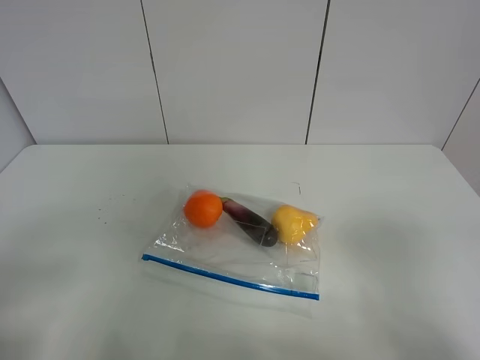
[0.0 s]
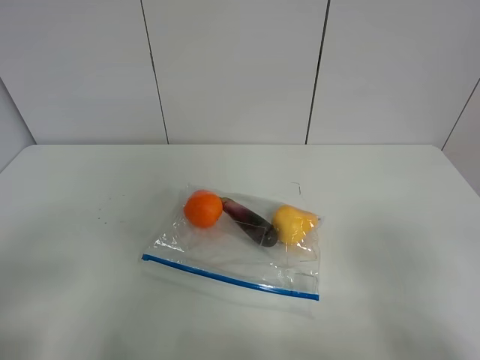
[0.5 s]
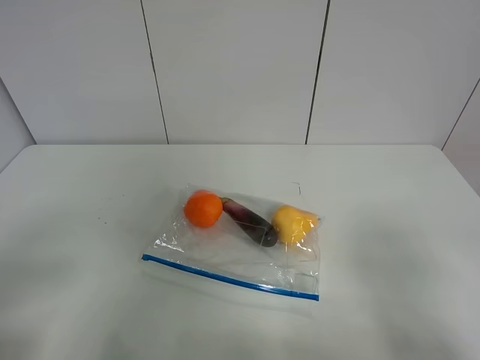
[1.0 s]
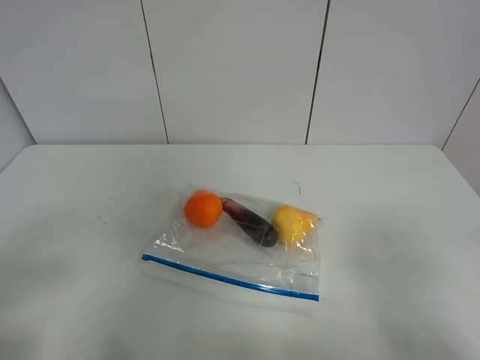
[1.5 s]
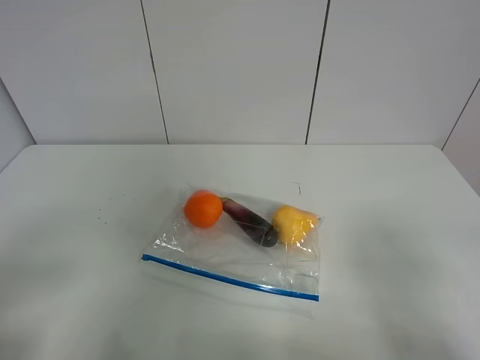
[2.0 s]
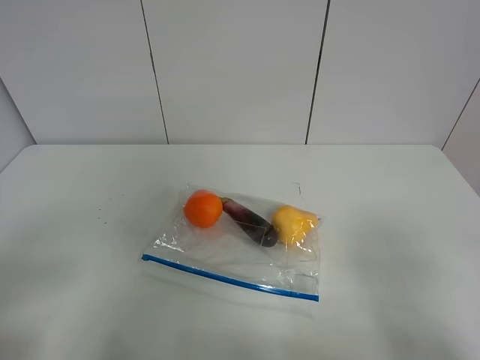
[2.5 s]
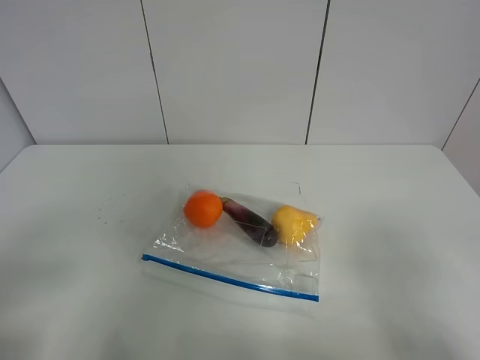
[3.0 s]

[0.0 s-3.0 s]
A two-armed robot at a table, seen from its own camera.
1.5 to 3.0 s: The two grippers keep their place.

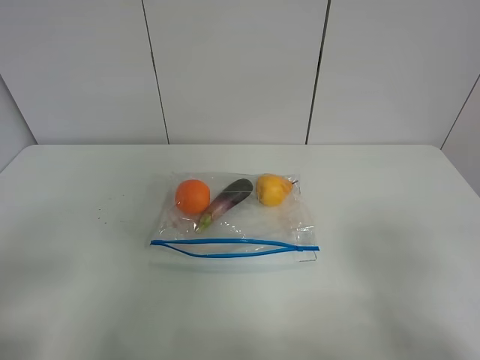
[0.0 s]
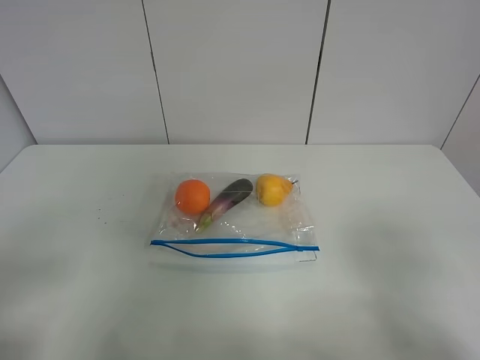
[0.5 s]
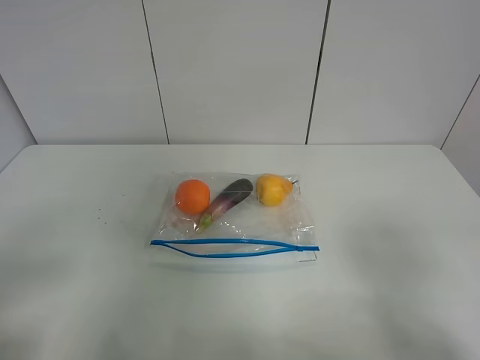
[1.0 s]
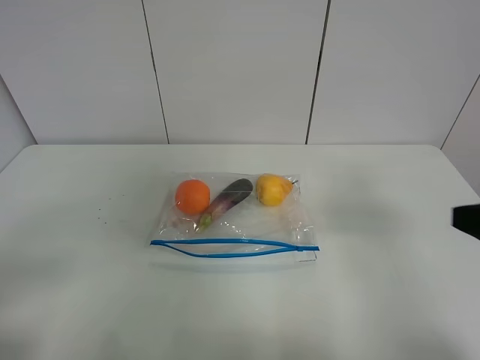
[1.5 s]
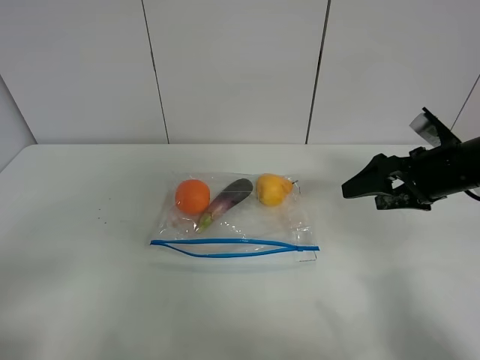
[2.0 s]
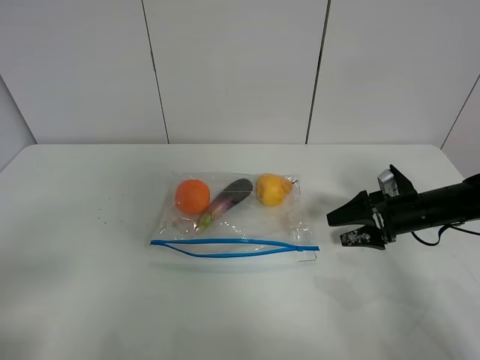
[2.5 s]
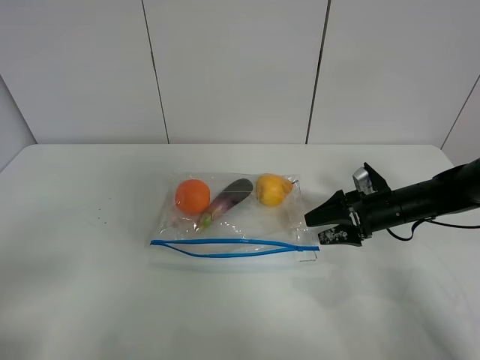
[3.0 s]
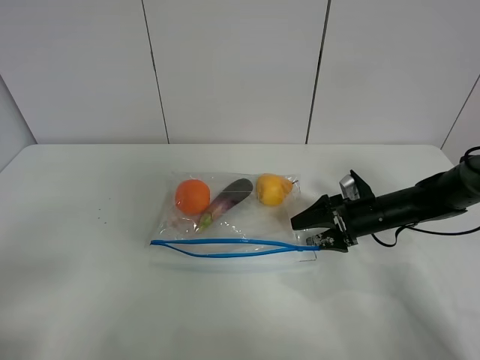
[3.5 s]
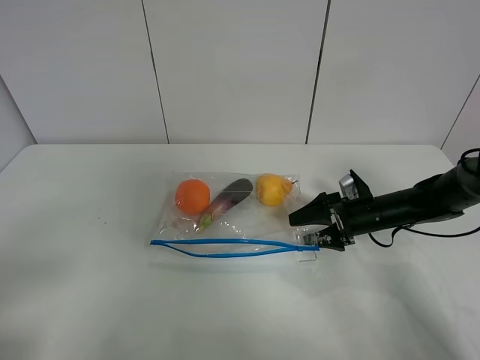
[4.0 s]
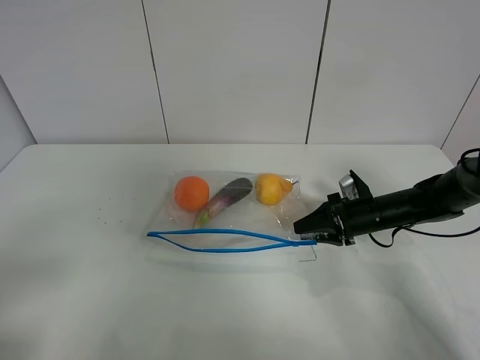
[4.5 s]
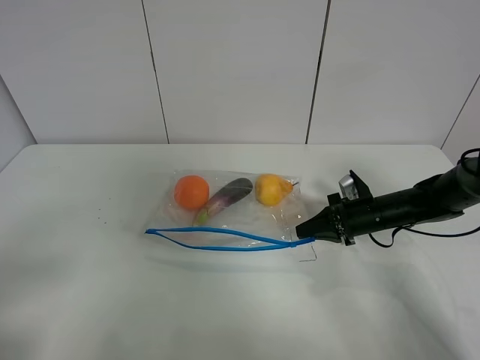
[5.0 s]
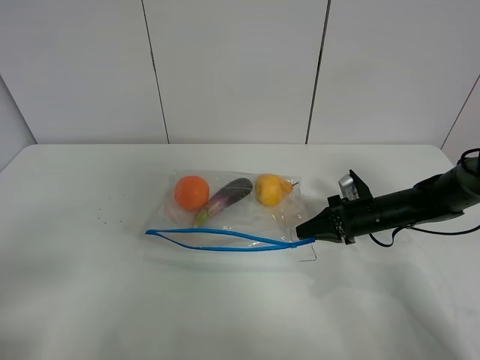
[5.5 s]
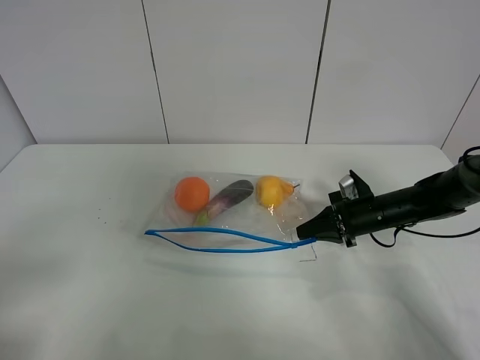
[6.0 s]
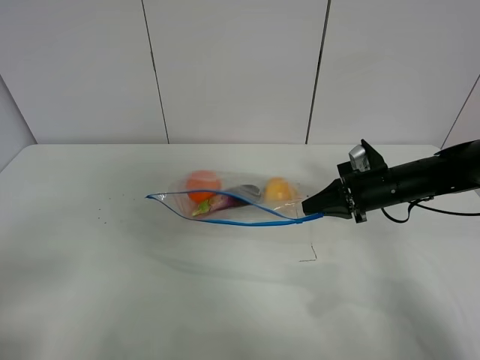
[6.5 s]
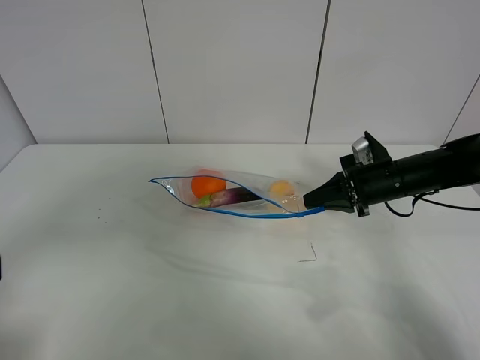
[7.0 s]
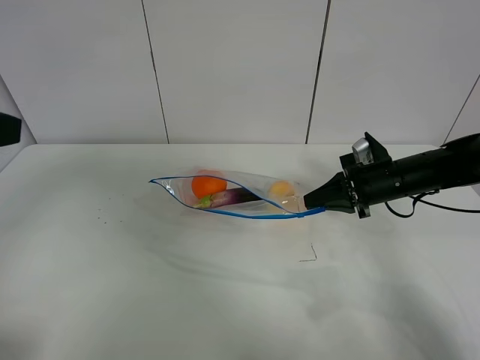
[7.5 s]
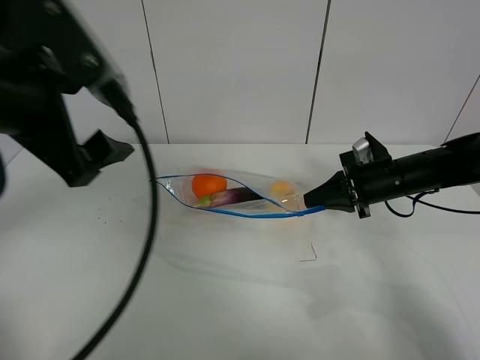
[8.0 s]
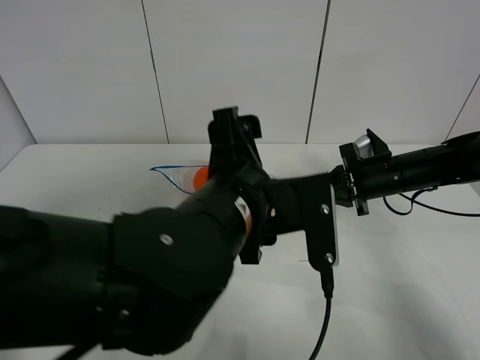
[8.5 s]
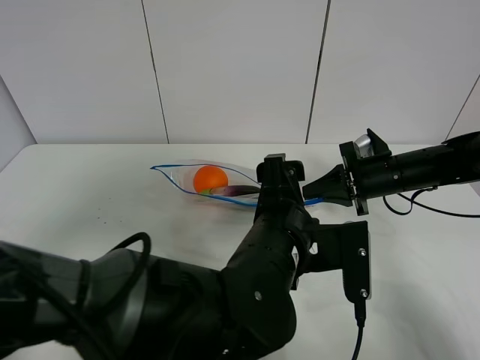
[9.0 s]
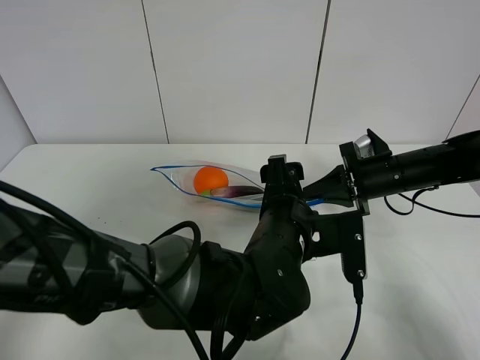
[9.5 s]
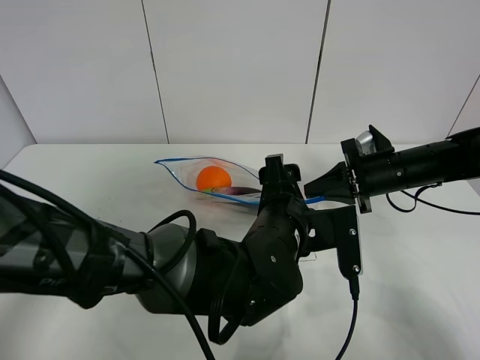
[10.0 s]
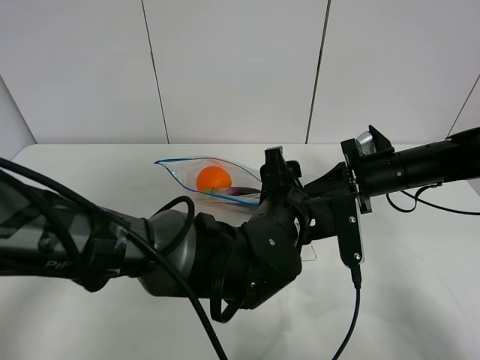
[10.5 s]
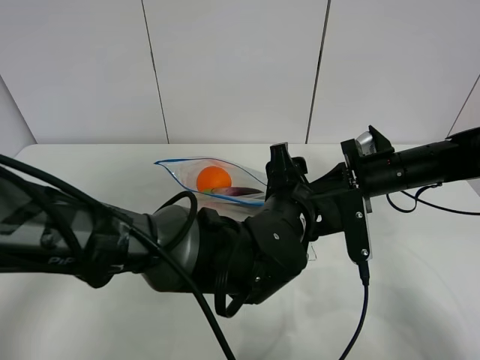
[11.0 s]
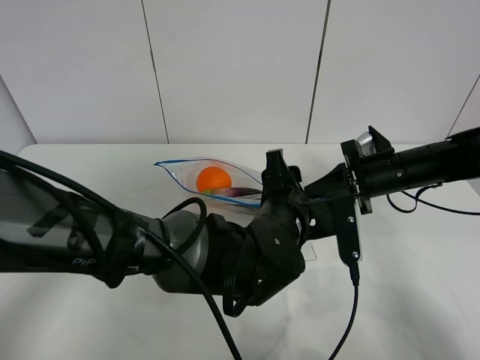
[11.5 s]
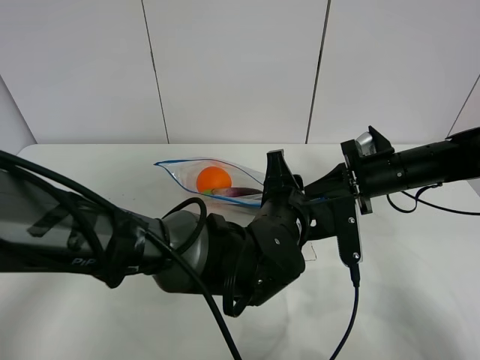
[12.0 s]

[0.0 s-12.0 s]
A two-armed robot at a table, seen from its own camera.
Step, 0.0 to 4.5 s: Grasp the fruit bag with right gripper.
Step, 5.0 to 7.0 s: Lift the fruit bag with your right gripper.
0.0 to 2.0 s: The right gripper goes approximately 30 cm forward.
2.0 to 4.0 s: The right gripper is displaced downward by roughly 15 cm.
4.0 to 6.0 s: The right gripper closes its fingers.
6.0 to 8.0 s: The right gripper shifts approximately 10 cm upward. The left gripper is displaced forward, to the right and upward by about 25 cm.
8.0 to 10.0 s: The left gripper moves to the right and downward, some 30 cm.
10.0 to 12.0 s: The left gripper closes.

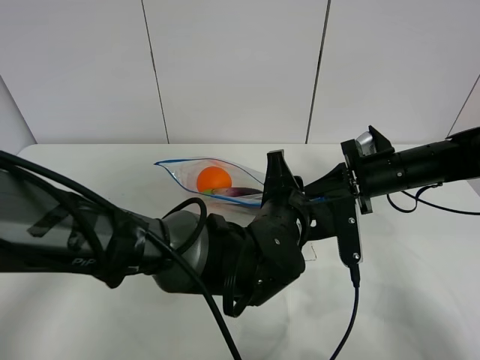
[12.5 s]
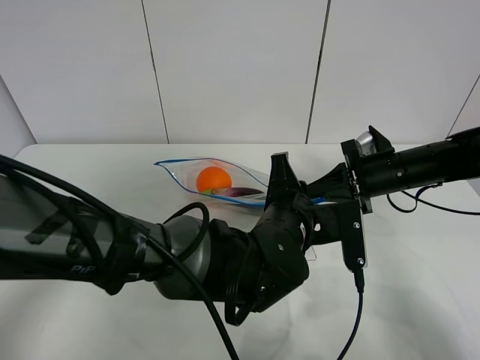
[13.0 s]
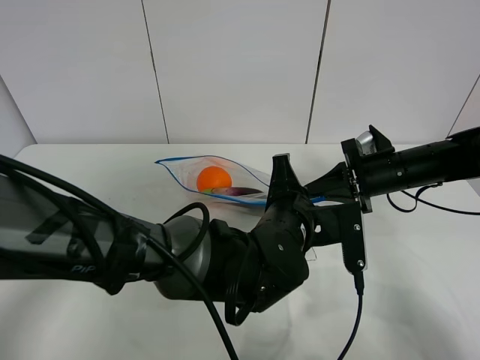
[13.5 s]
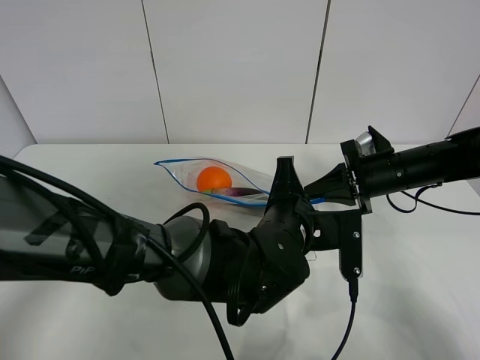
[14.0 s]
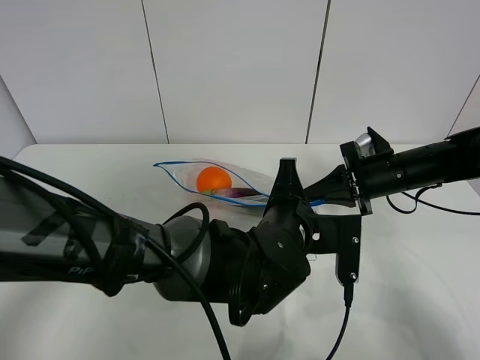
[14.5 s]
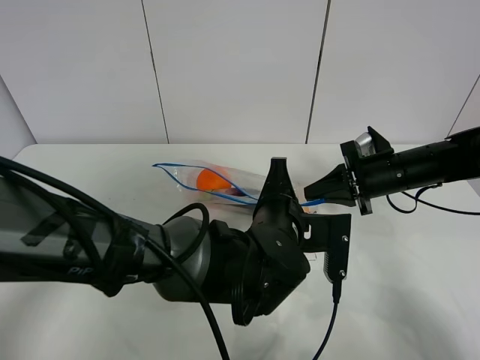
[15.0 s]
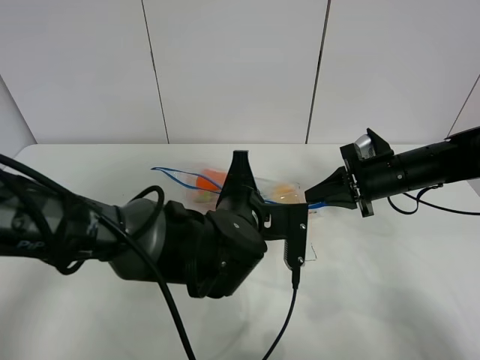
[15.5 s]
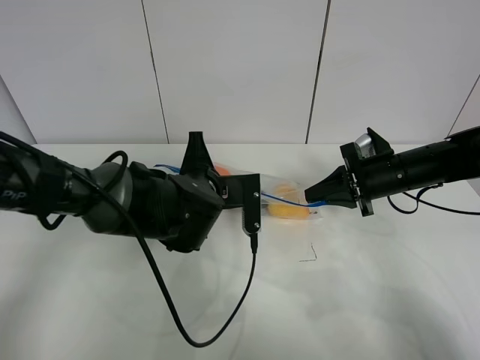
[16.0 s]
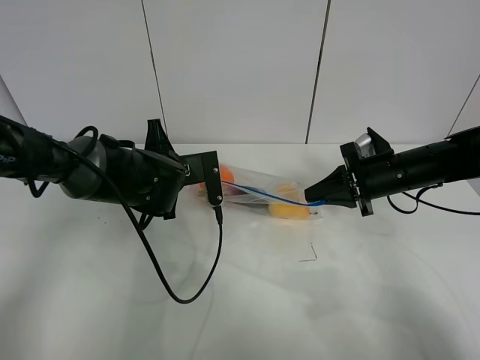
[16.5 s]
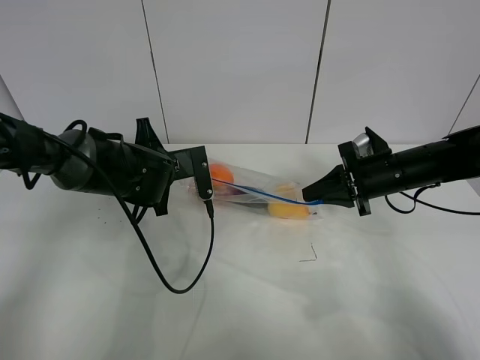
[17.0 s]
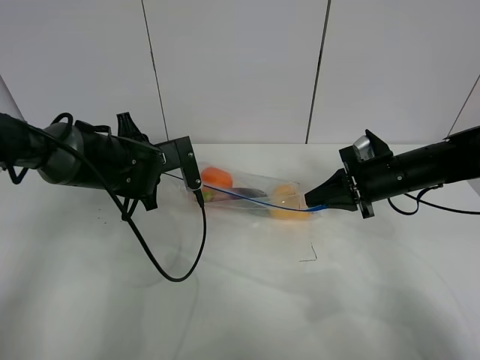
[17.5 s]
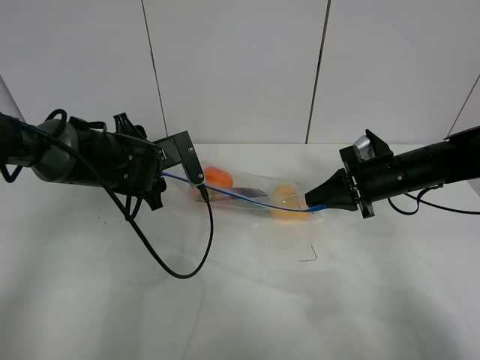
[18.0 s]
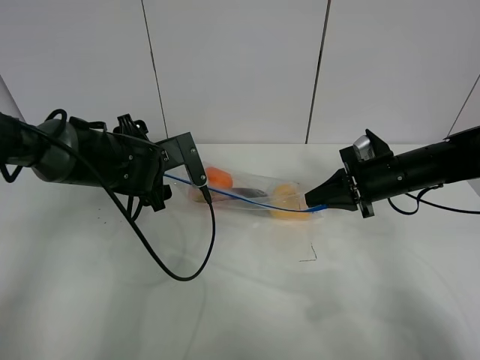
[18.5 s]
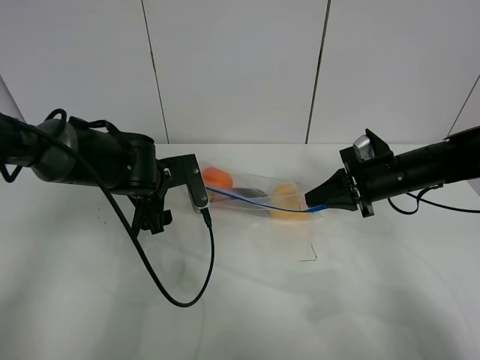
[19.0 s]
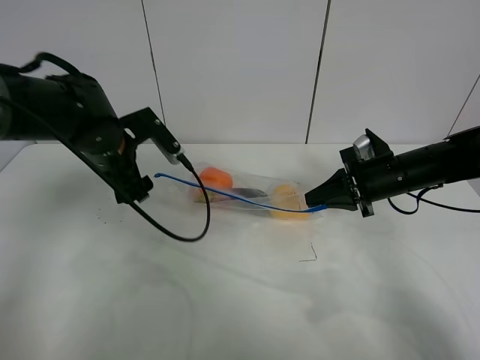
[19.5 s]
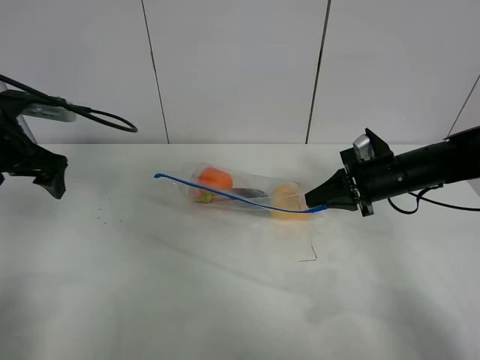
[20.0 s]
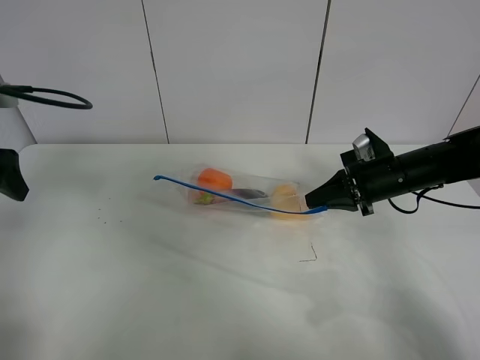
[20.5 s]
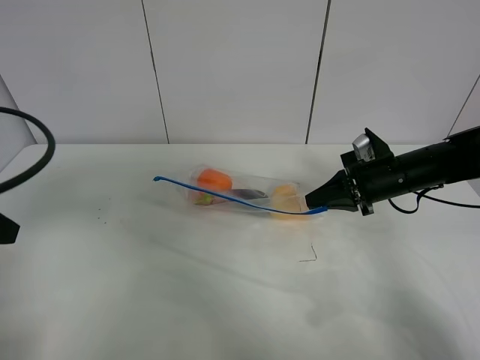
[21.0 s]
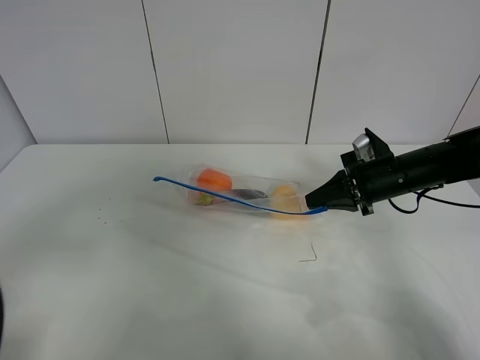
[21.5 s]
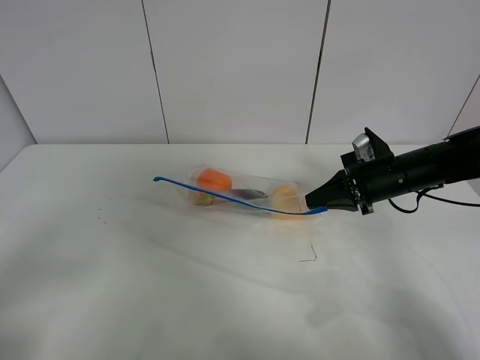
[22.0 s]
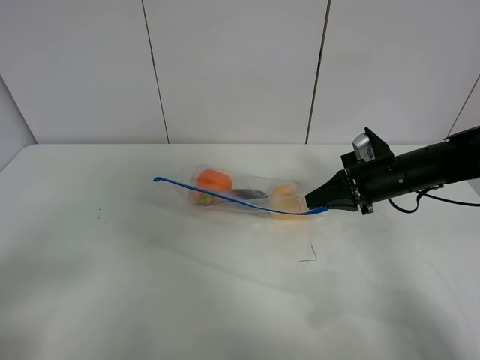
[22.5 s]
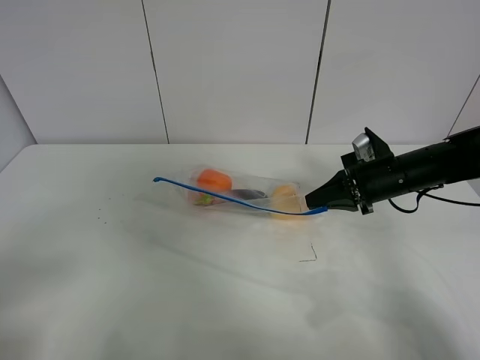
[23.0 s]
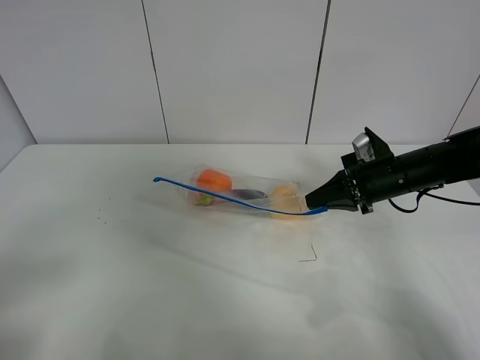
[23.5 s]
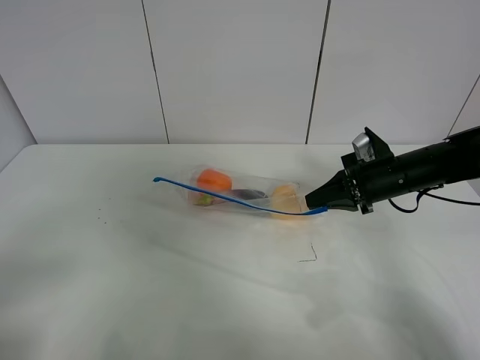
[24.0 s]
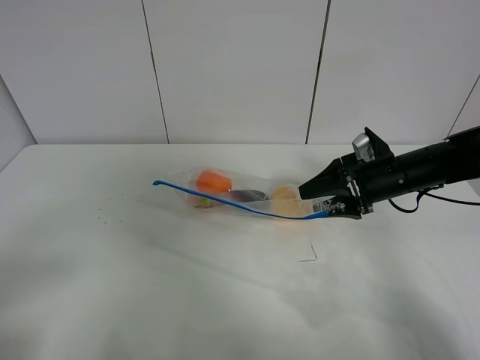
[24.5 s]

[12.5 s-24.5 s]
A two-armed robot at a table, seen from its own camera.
Step, 12.5 to 17.5 s: Pull the fruit bag with left gripper.
12.5 to 14.5 s: The left gripper closes its fingers.
14.5 to 16.5 s: The left gripper is displaced to the left and forward by approximately 20 cm.
16.5 to 18.5 s: The left gripper opens its fingers.
18.5 to 20.5 s: The left gripper is displaced to the left, upward and backward by some 25 cm.
20.5 to 22.5 s: The left gripper travels backward by about 25 cm.
22.5 to 24.5 s: The right gripper opens up.
